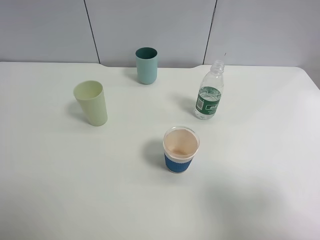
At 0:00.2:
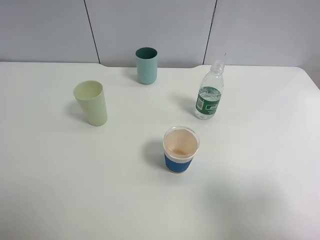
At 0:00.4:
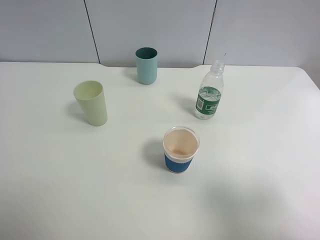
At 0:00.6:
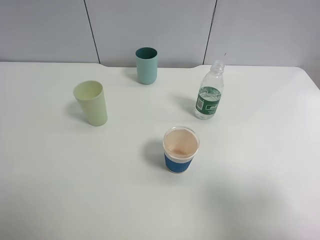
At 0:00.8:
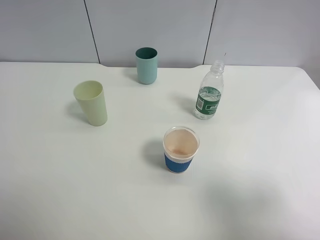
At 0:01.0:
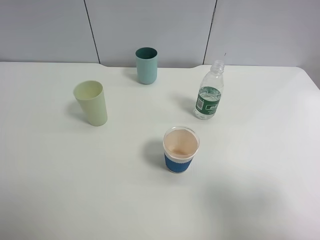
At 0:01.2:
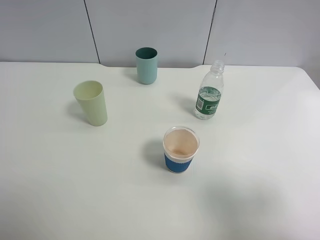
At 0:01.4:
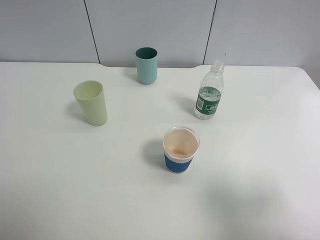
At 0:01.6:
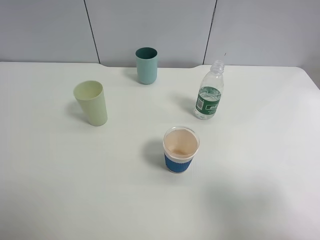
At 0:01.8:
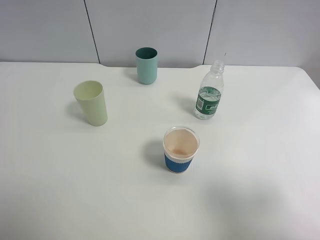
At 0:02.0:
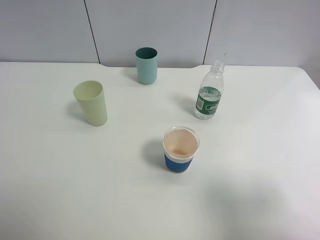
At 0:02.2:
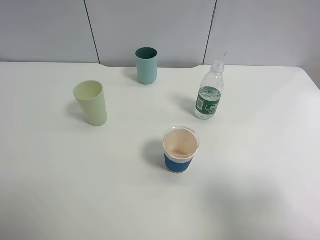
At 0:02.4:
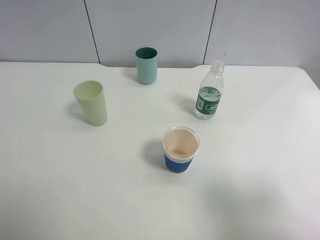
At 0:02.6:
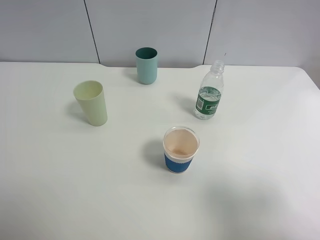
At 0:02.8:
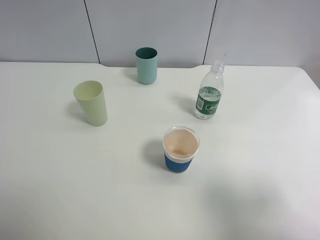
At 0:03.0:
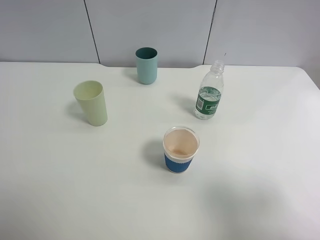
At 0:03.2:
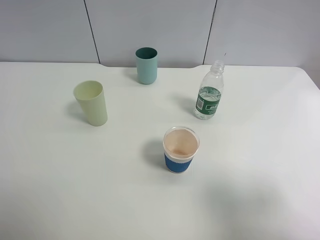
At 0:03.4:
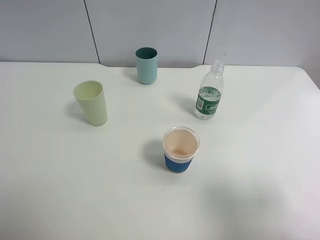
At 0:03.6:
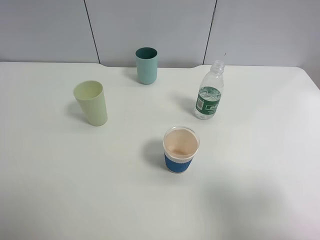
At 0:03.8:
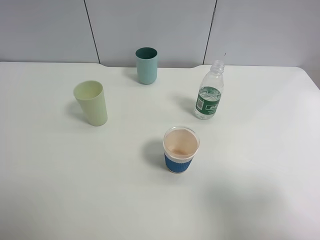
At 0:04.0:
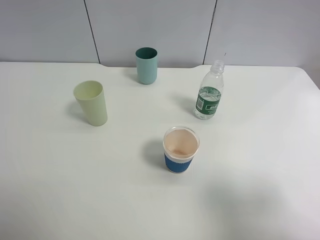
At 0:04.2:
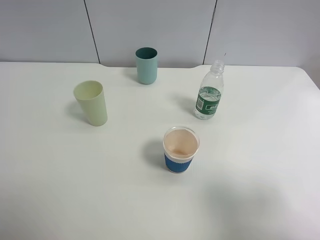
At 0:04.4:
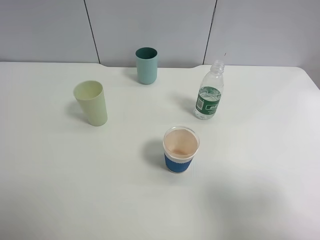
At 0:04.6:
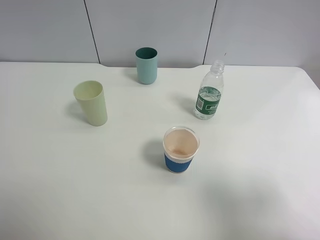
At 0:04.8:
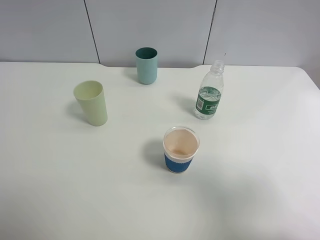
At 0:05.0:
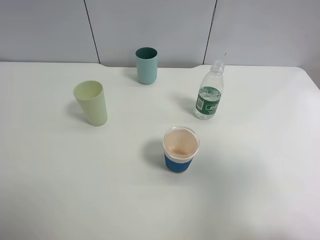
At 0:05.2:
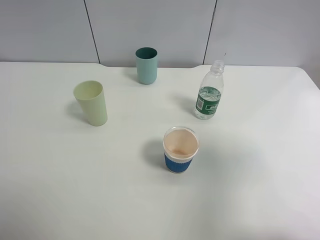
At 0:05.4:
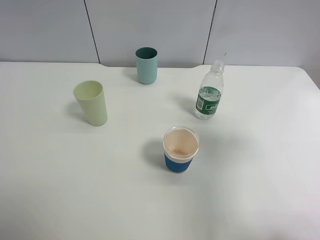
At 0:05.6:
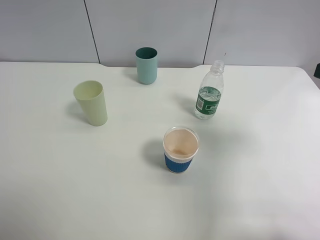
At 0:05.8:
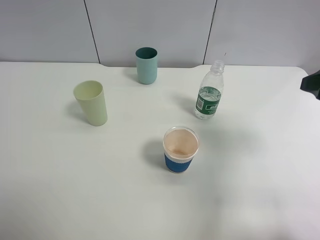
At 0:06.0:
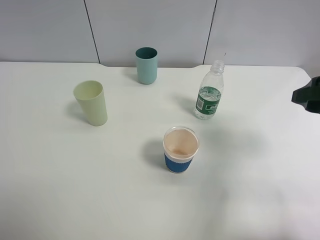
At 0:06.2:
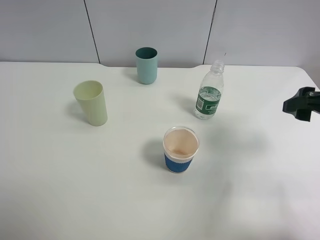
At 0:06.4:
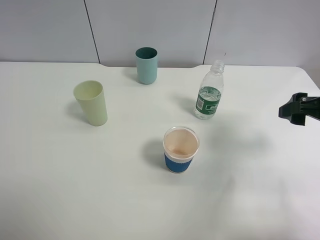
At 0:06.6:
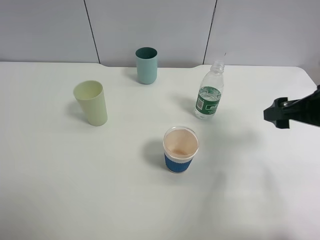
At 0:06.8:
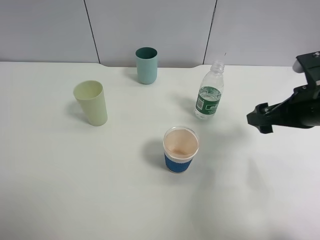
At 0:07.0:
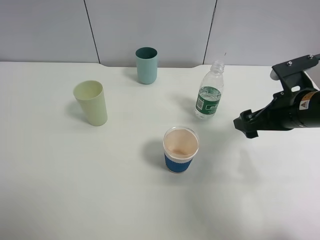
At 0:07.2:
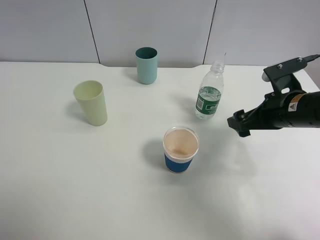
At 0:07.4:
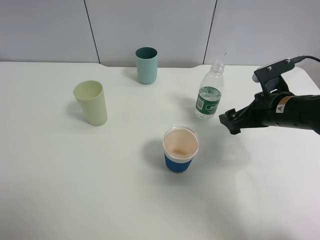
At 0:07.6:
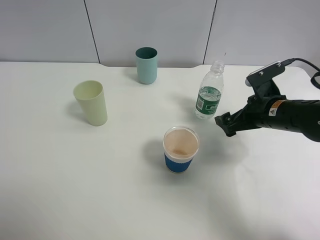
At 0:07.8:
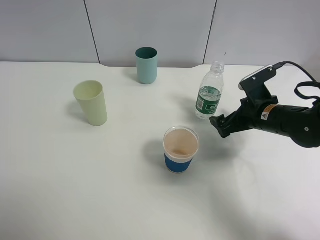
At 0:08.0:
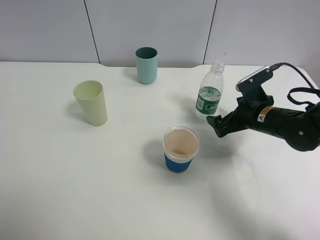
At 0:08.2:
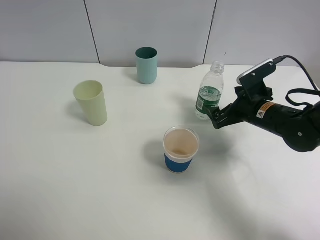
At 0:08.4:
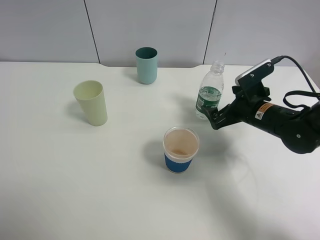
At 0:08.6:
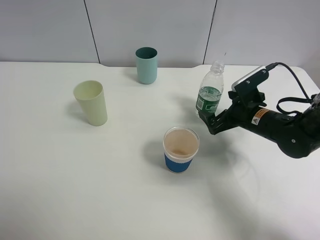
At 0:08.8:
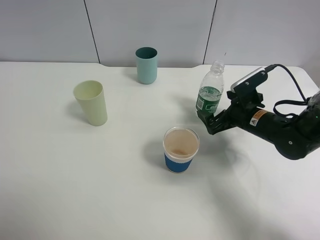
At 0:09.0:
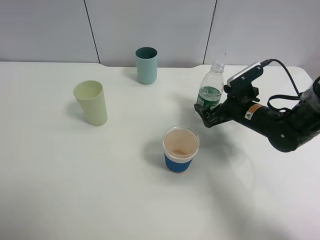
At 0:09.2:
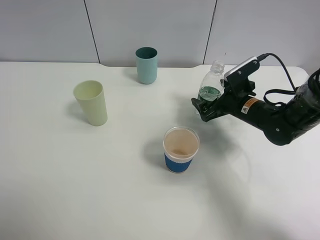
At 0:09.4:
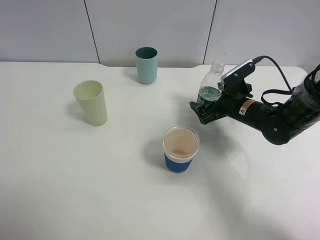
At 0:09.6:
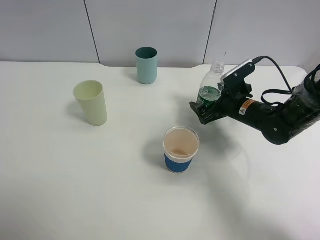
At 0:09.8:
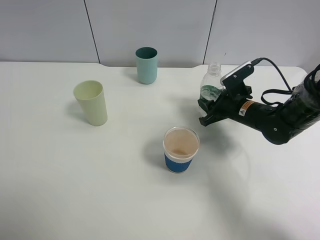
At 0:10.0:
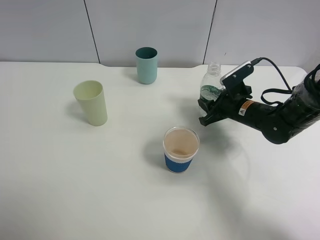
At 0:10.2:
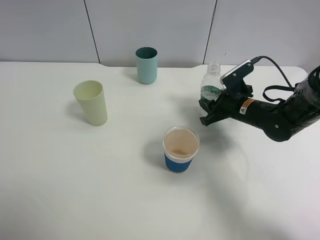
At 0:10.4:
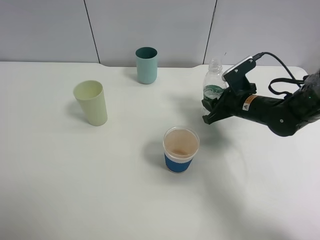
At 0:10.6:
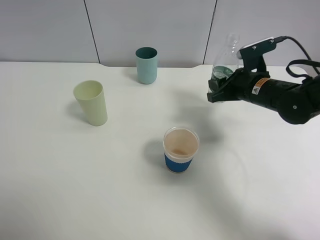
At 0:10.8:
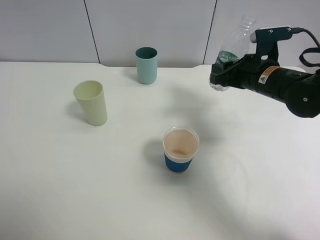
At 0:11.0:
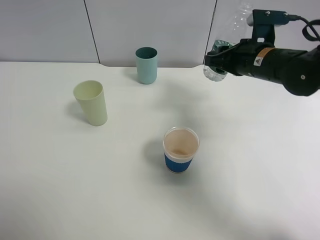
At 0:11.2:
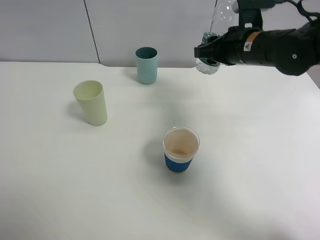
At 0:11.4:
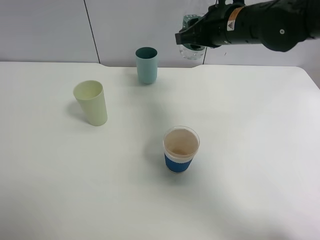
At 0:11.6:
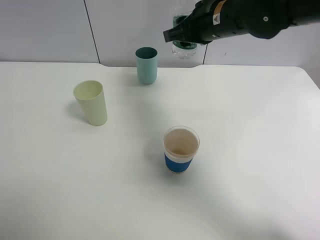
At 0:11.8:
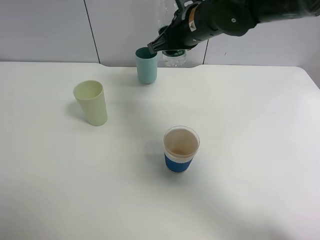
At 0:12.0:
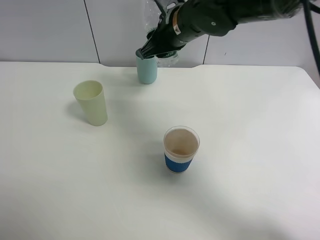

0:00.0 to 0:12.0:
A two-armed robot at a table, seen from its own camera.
Task of the whole recording: use a clamp to hold the bottle of the drink, pour the beverage into a random cup, then clamp the cup containing the drink and pour the drink into another random cup.
Step, 0:00.0 to 0:10.4: Pick up the water bottle with right gripper.
0:00.0 to 0:04.4: Both grippers stay put.
0:04.4 to 0:06.0: The right gripper travels forward by about 15 cm.
0:06.0 to 0:07.6: The right gripper moves downward, forward and to the left, approximately 15 cm.
0:07.6 to 0:09.0: The right gripper ends up some 5 cm from where it was.
0:09.0 to 0:10.4: The right gripper closes its fingers.
0:10.4 to 0:12.0: The right gripper moves to the left and upward, approximately 20 cm.

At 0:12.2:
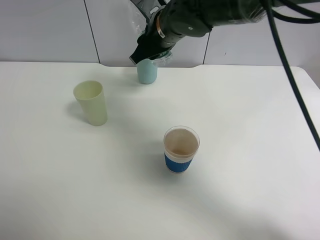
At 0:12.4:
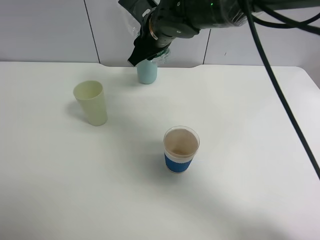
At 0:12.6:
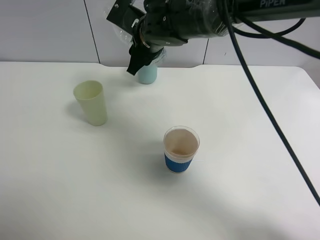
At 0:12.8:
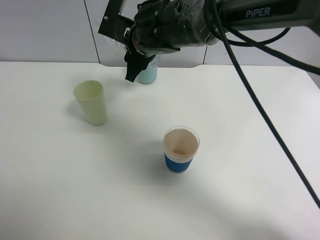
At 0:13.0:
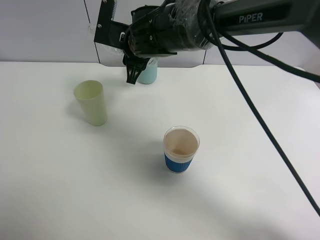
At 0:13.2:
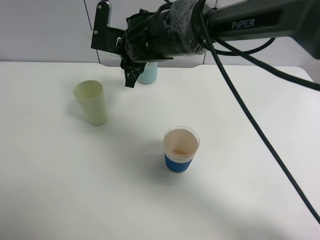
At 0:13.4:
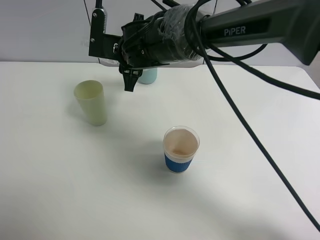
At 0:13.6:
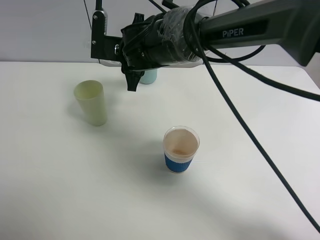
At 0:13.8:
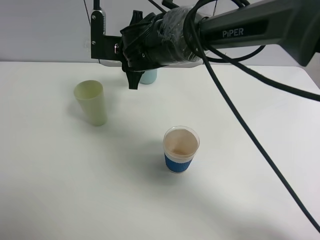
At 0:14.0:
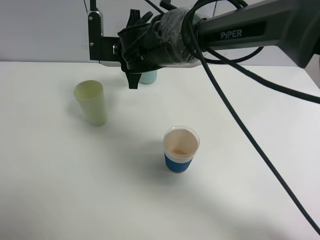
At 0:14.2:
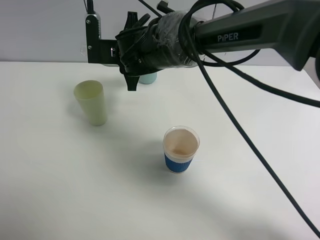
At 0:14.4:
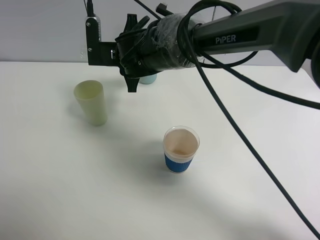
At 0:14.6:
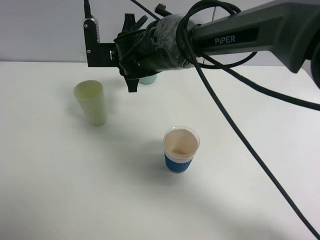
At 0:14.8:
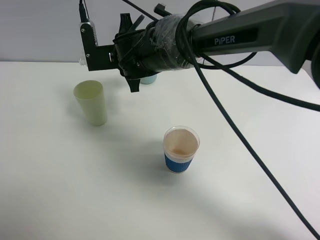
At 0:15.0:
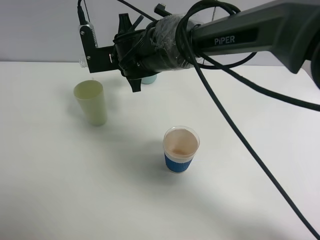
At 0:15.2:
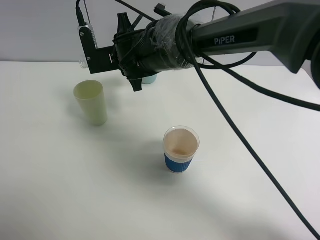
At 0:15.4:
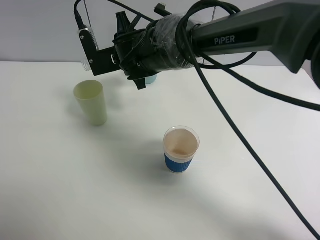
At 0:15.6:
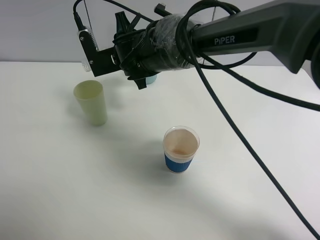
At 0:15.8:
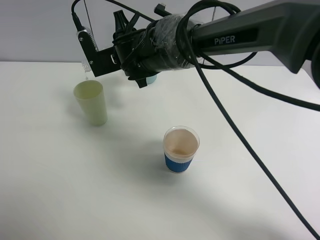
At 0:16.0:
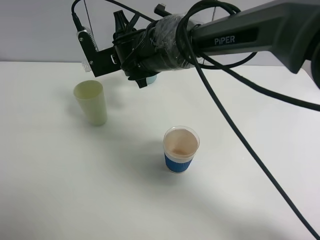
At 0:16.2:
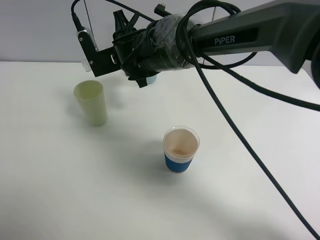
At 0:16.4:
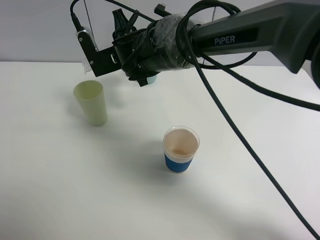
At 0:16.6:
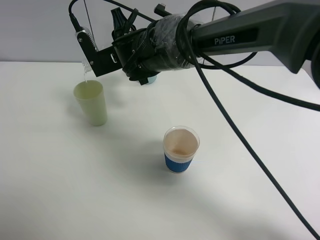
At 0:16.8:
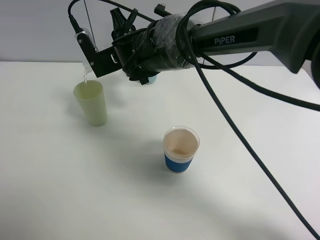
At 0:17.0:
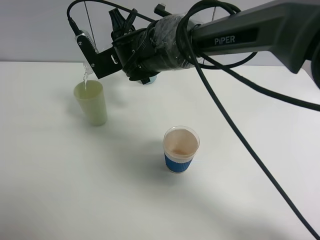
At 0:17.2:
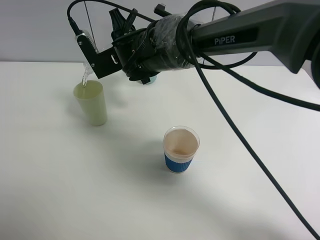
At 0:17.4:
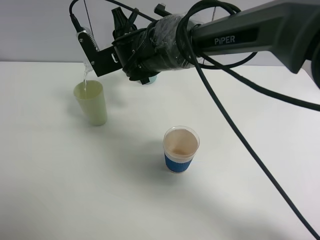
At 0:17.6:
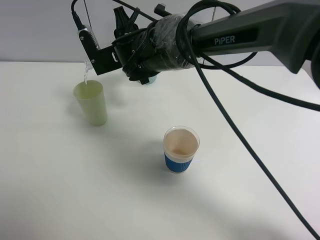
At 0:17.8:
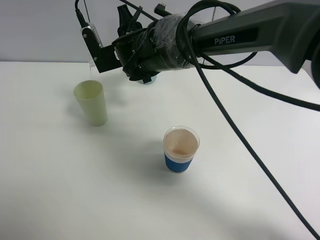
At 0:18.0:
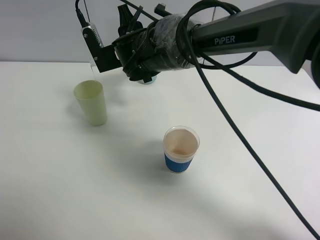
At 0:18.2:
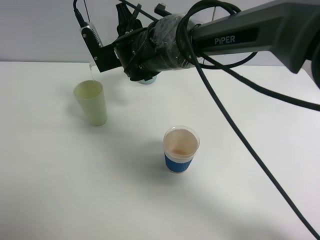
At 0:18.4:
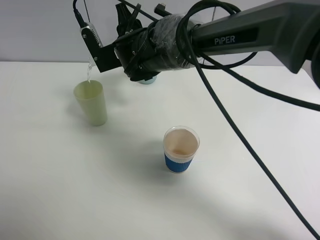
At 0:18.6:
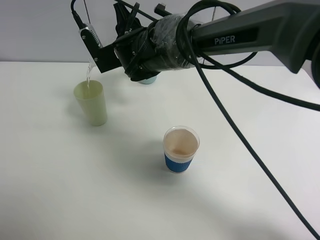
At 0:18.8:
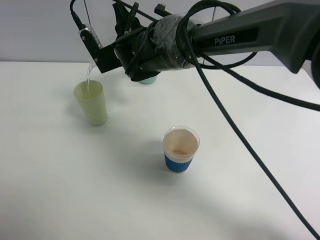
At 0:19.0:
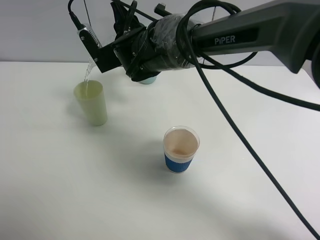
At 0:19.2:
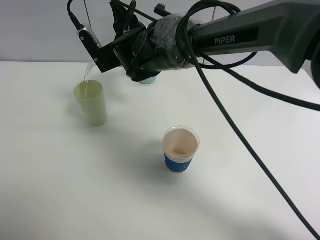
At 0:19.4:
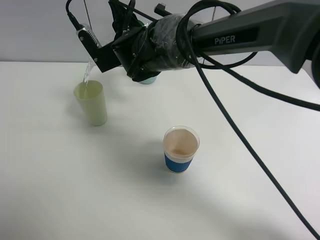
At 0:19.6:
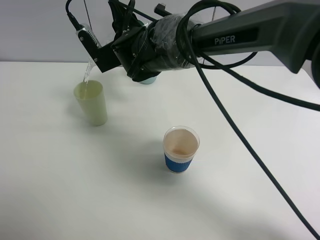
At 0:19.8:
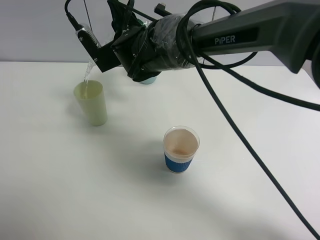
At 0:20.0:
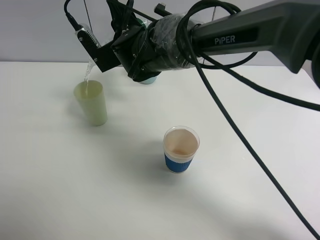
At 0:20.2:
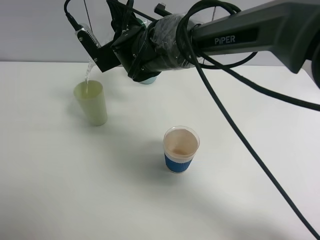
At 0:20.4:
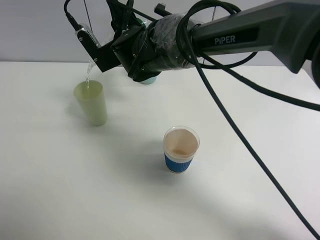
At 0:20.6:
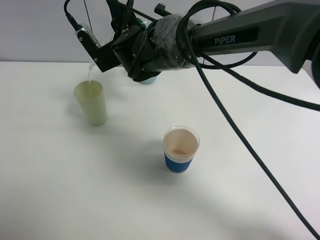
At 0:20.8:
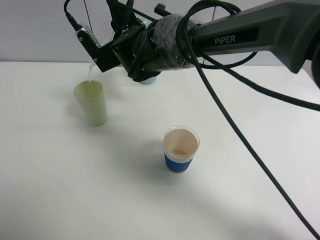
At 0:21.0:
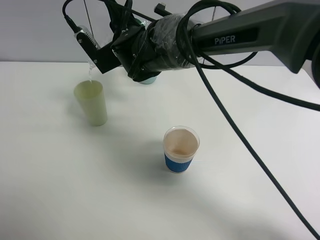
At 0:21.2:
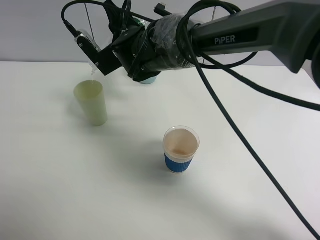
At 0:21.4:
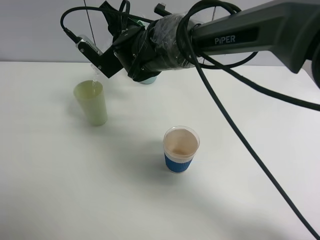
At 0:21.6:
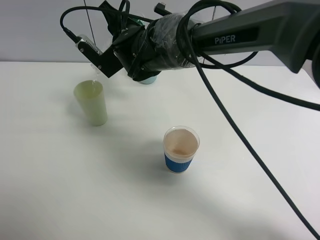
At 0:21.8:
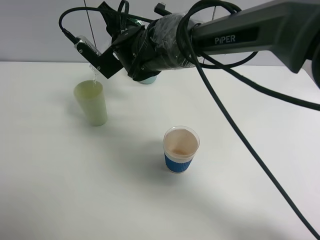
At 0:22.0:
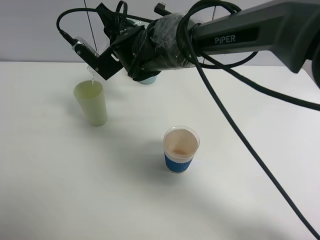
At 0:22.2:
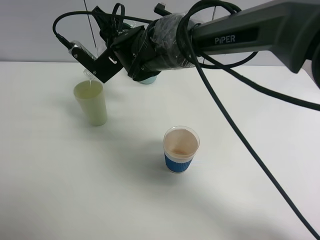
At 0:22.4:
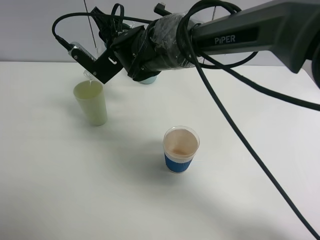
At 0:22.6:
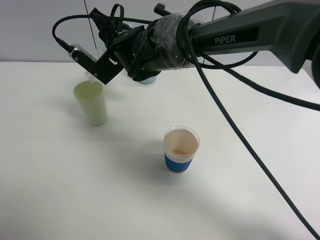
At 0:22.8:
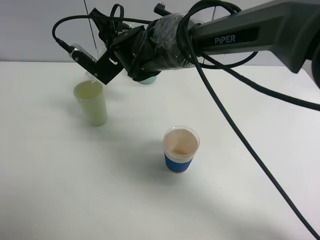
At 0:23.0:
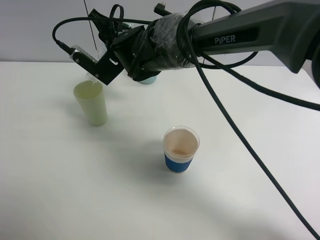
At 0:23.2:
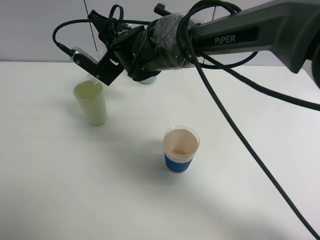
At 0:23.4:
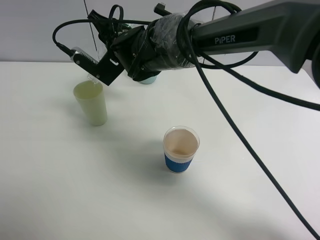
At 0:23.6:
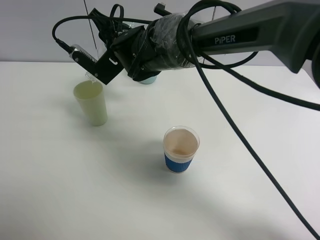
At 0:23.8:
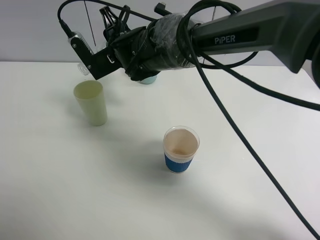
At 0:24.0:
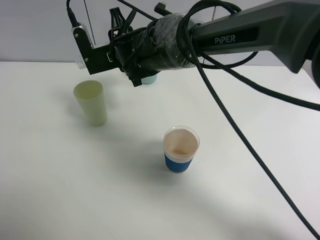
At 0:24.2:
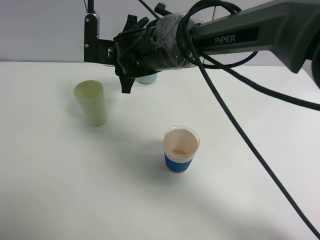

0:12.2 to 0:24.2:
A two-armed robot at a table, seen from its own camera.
Task of the whole recording: use a clamp to hold the bottle of the drink, pour the beverage into a random cup, then clamp the cup containing the drink and pour the drink into another random cup.
Step, 0:12.2 to 0:23.8: Pour water into the green plastic cup with right gripper.
0:12.2 to 0:13.8: The right gripper moves to the left, approximately 5 cm.
0:13.8 to 0:15.2: The grippers make only small movements.
0:15.2 to 0:18.2: There are only small adjustments of the grippers.
0:18.2 to 0:21.2: There are only small adjustments of the grippers.
0:21.2 to 0:22.6: The grippers stay close to where they were, moving slightly.
